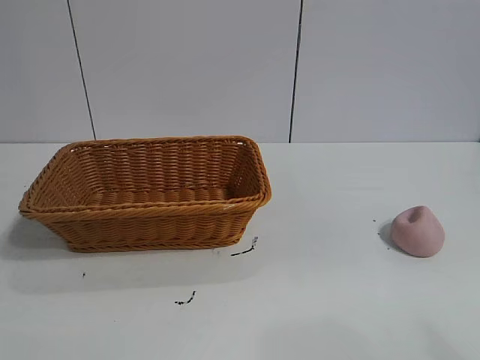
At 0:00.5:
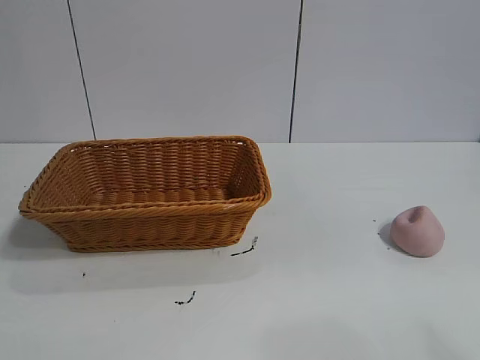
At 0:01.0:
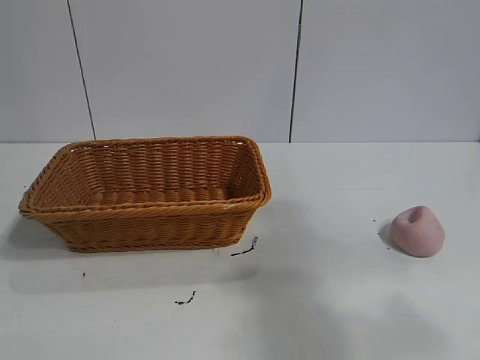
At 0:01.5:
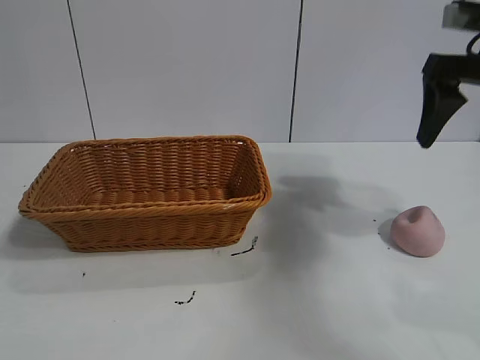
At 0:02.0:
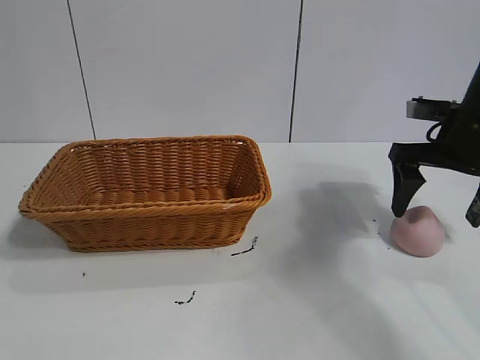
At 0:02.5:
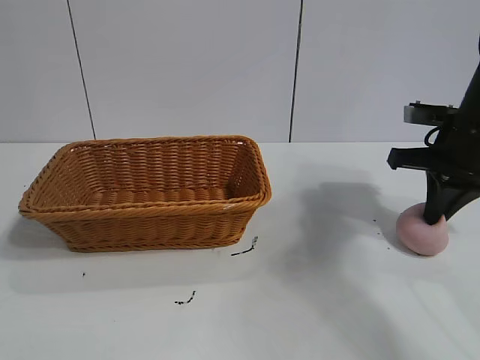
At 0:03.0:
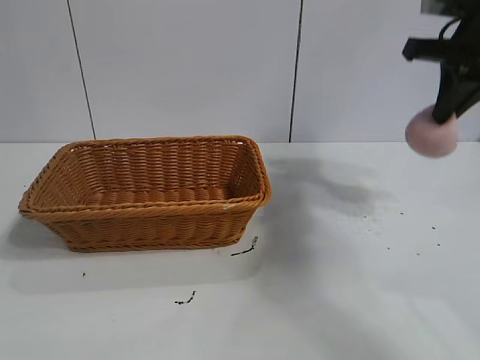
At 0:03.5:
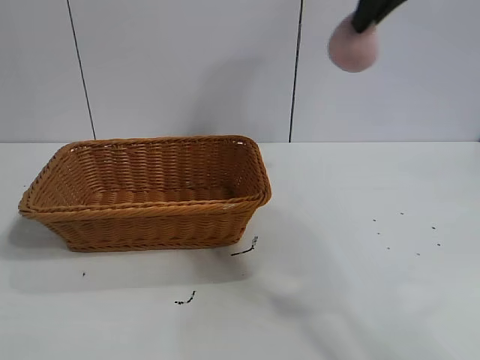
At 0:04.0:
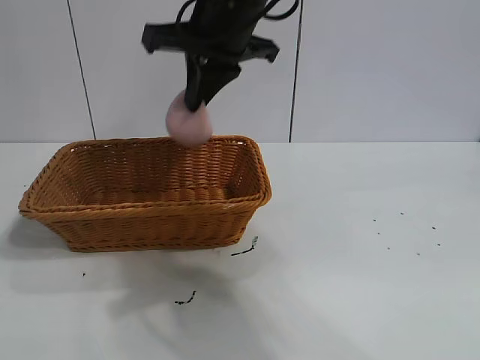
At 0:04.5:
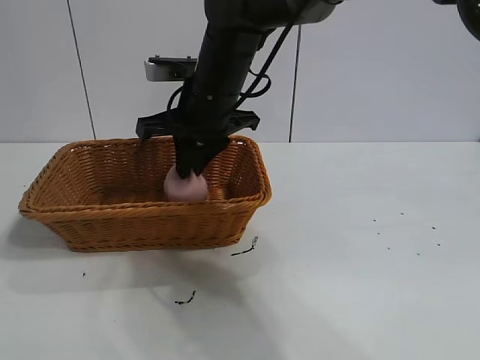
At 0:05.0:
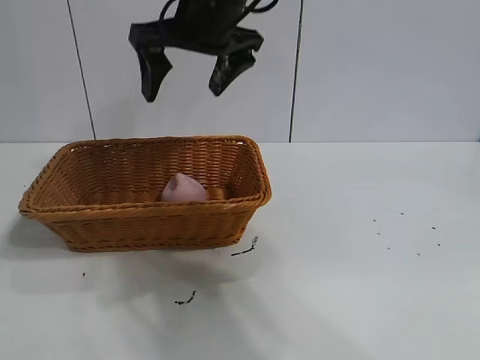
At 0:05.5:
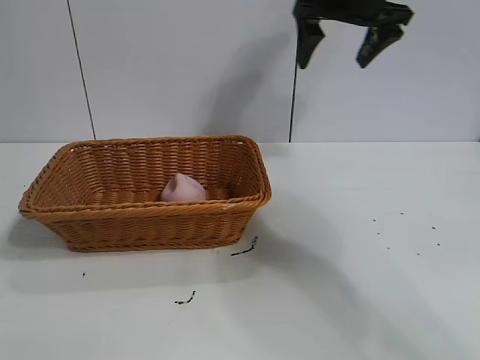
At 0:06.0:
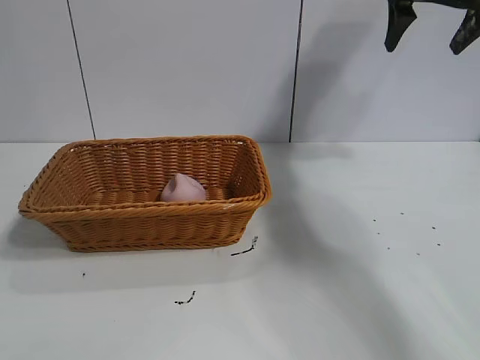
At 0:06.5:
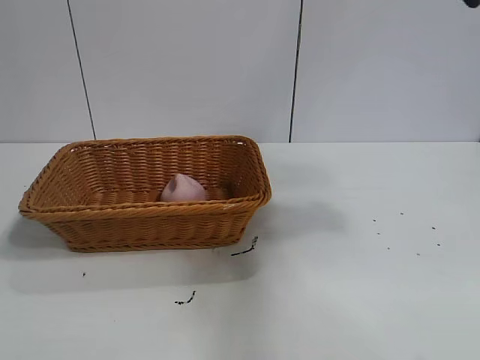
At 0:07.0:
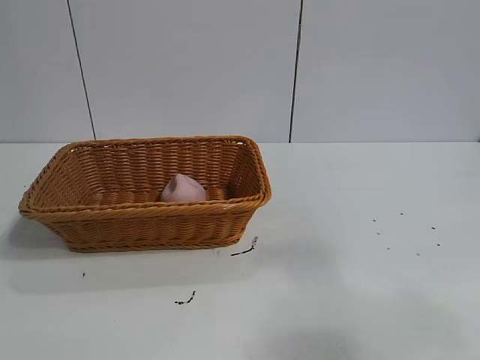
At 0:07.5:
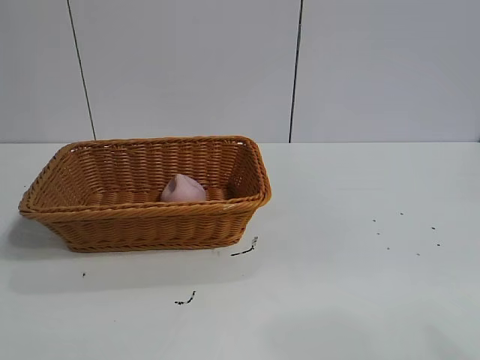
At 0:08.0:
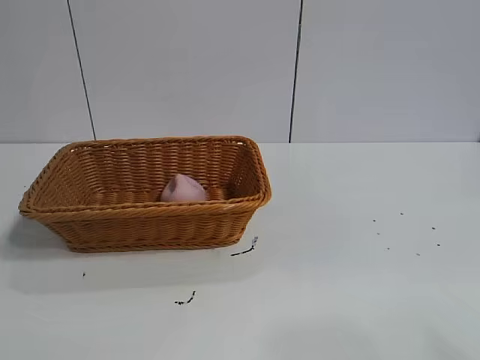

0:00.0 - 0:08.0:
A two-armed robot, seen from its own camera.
Task of the whole recording: pick up the peach and put it into the basket.
Step, 0:01.0 - 0:02.5: Grasp the peach with right gripper.
Step, 0:03.0 - 0:05.0: Place the peach in the basket with right gripper.

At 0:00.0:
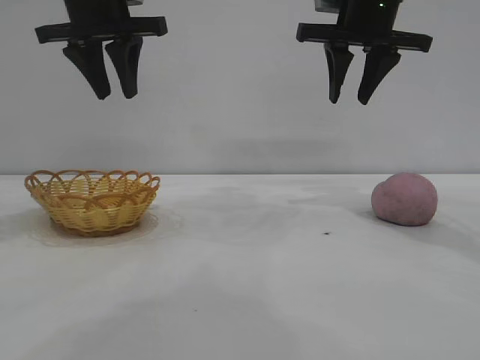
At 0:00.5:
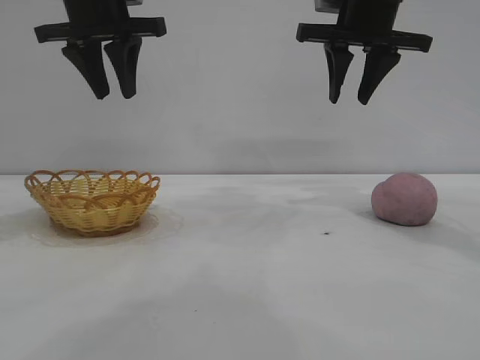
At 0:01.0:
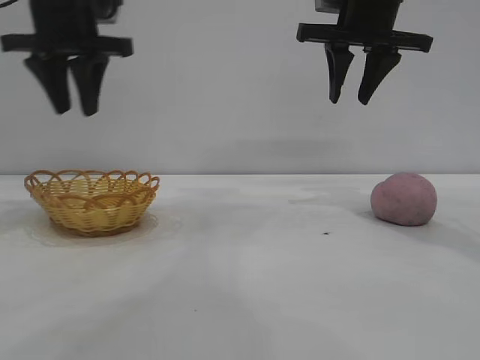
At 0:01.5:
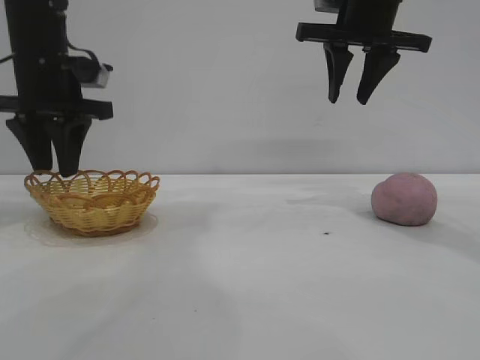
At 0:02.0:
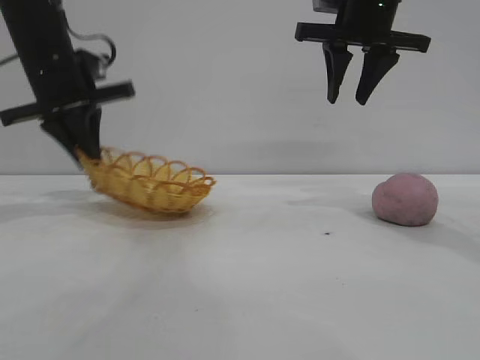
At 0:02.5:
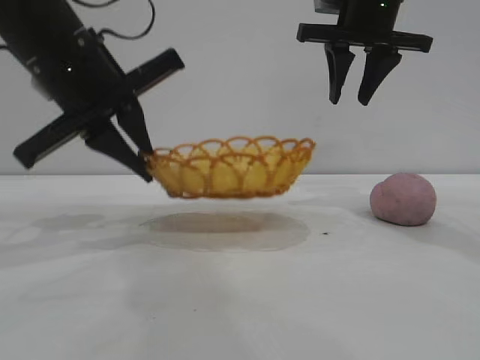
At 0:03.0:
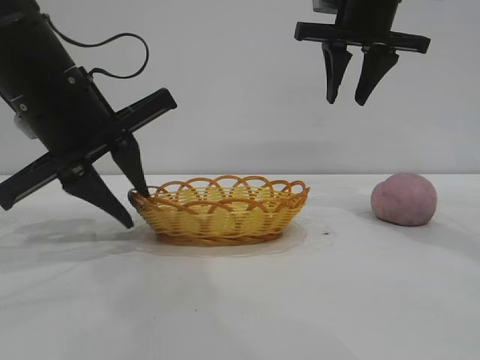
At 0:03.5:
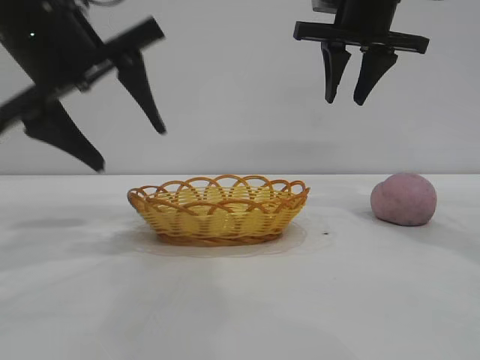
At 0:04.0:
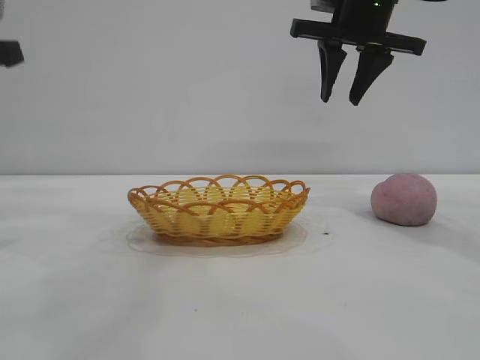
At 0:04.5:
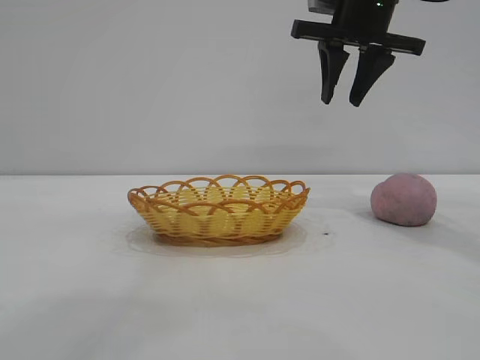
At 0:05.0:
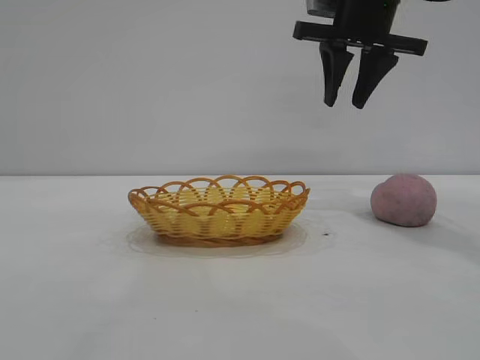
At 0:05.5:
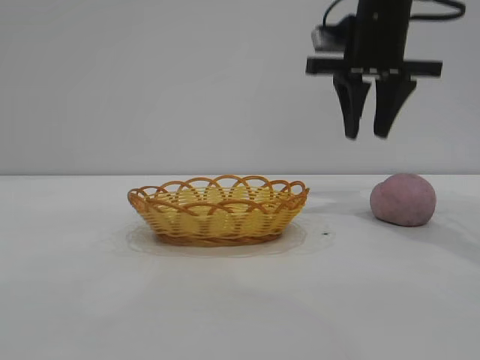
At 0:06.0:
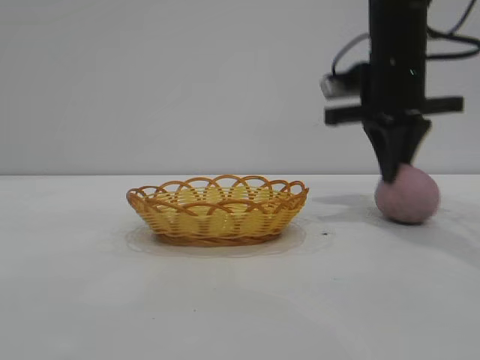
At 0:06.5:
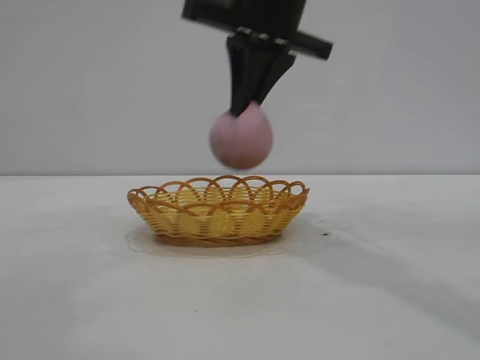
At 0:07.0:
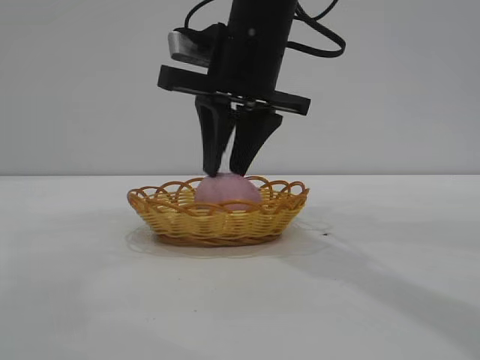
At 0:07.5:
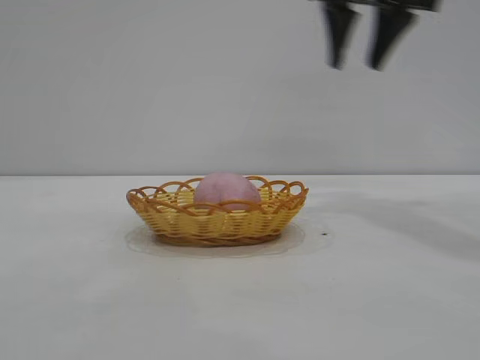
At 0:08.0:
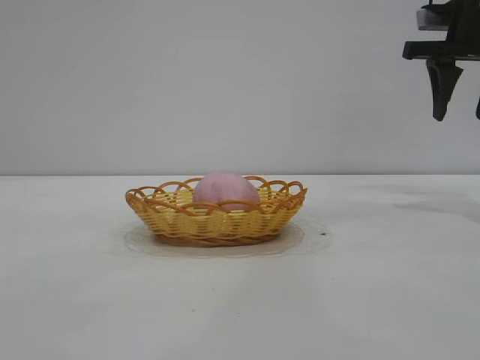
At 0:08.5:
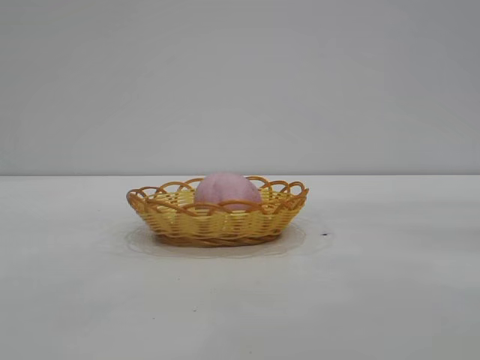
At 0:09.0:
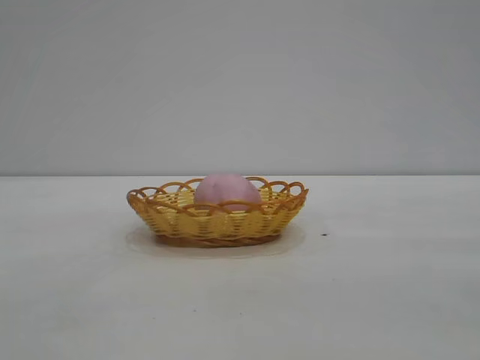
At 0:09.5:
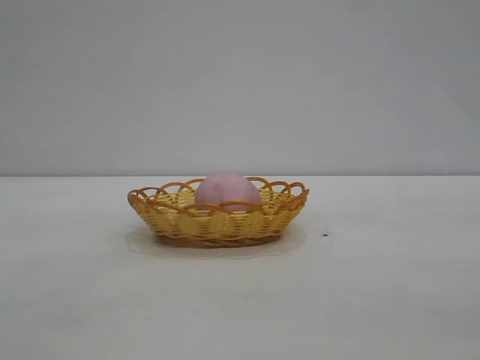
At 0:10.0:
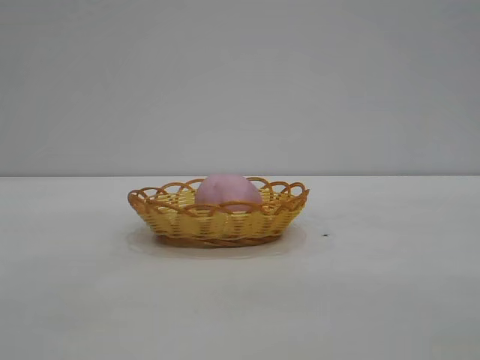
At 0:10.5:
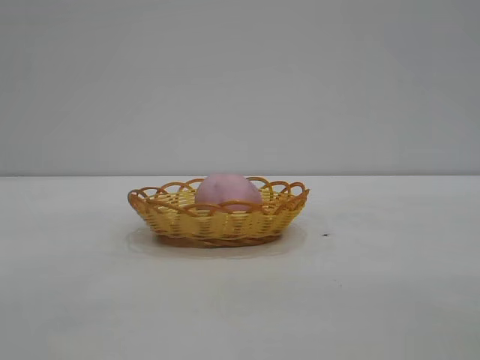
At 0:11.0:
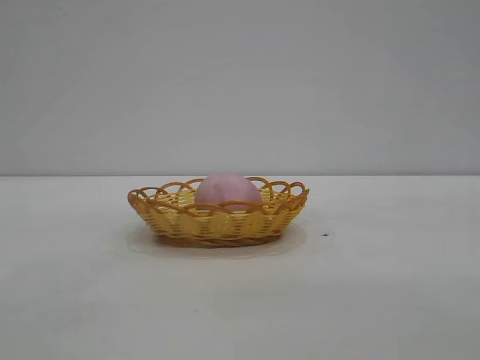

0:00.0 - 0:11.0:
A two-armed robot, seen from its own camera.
Task of the whole recording: pick up the peach and put it into the basket.
Step, 0:00.0 - 0:03.5: Move the basket to the center of view.
Step, 0:04.0 - 0:06.0: Pick up the peach.
Step, 0:06.5 - 0:07.0: place the peach into the basket.

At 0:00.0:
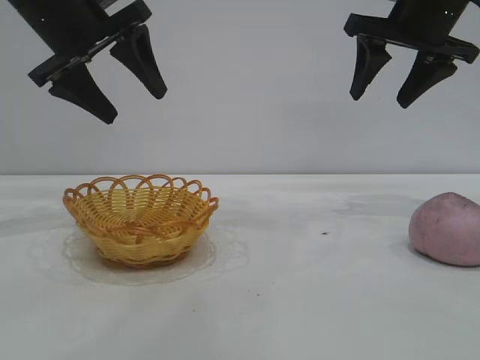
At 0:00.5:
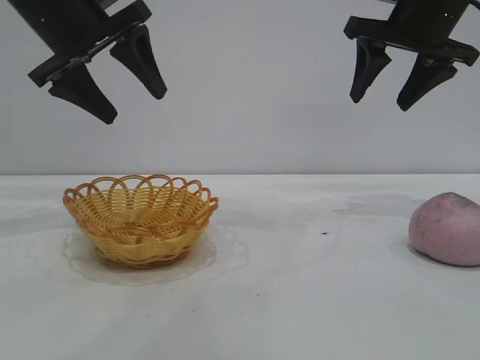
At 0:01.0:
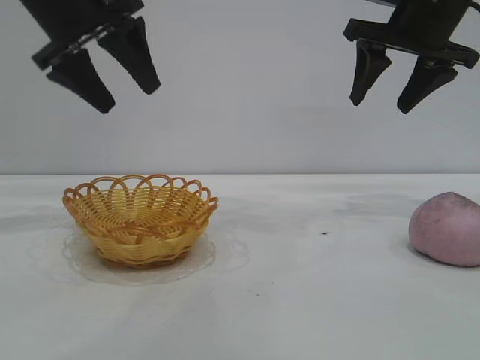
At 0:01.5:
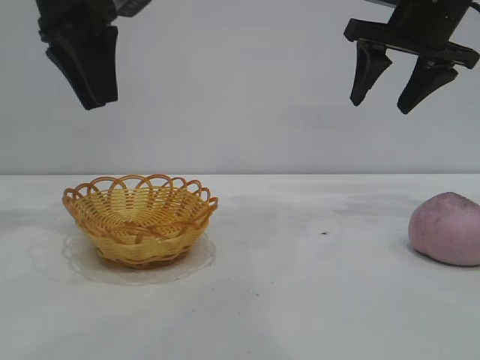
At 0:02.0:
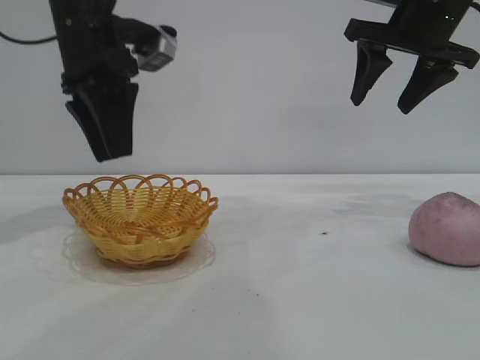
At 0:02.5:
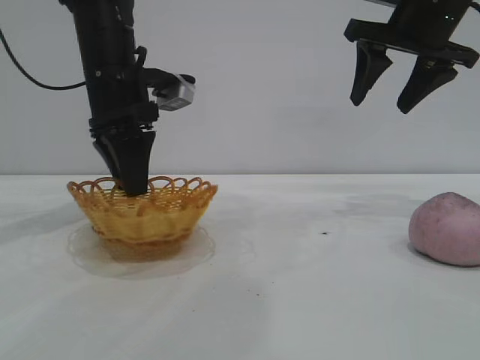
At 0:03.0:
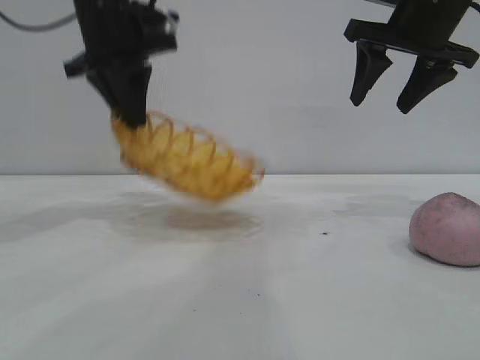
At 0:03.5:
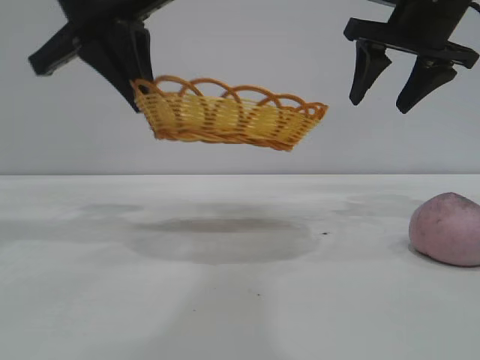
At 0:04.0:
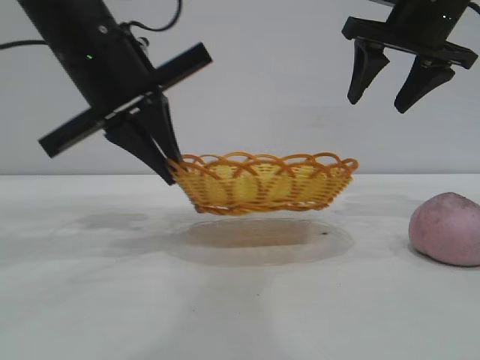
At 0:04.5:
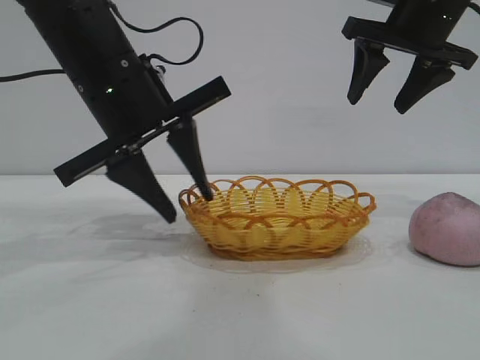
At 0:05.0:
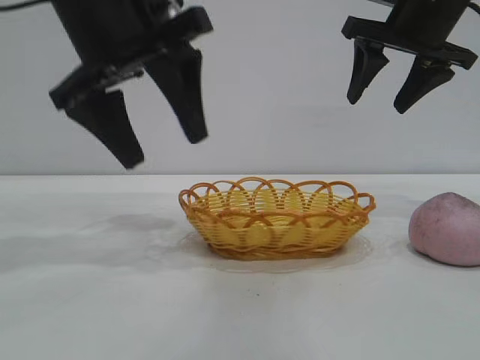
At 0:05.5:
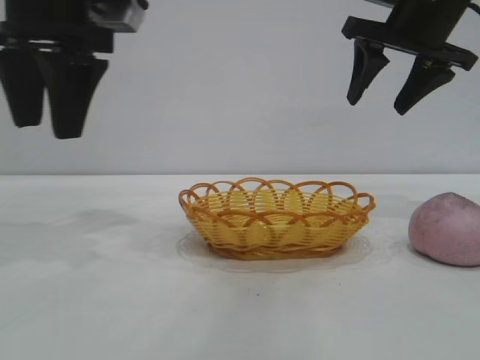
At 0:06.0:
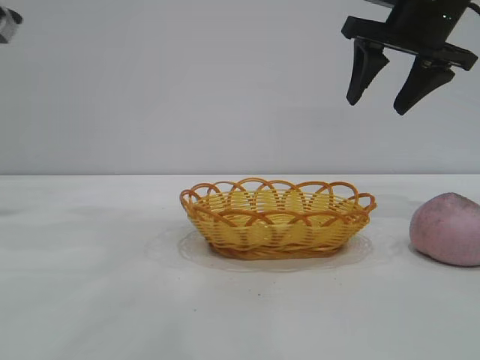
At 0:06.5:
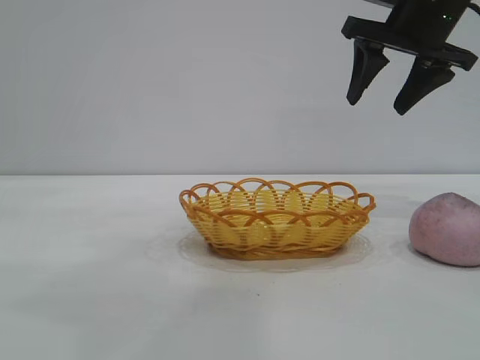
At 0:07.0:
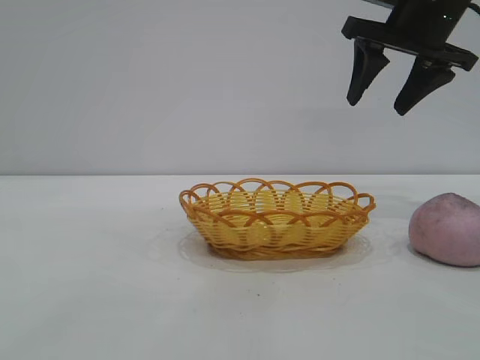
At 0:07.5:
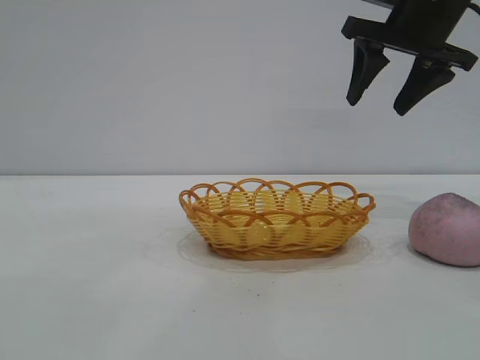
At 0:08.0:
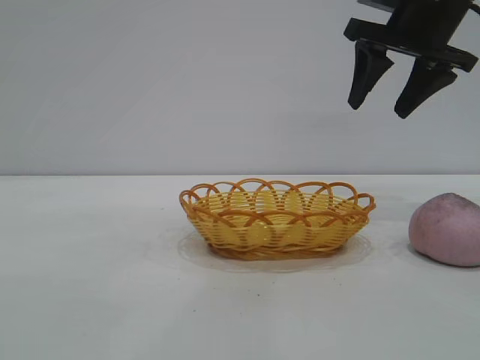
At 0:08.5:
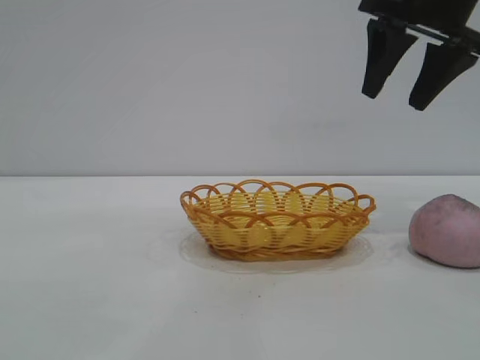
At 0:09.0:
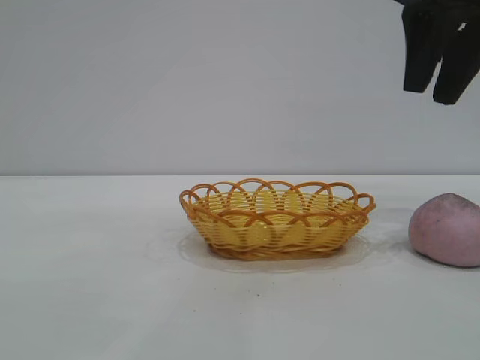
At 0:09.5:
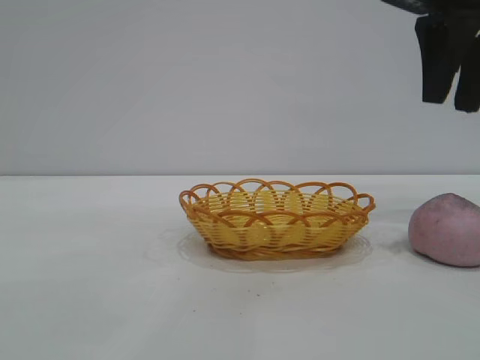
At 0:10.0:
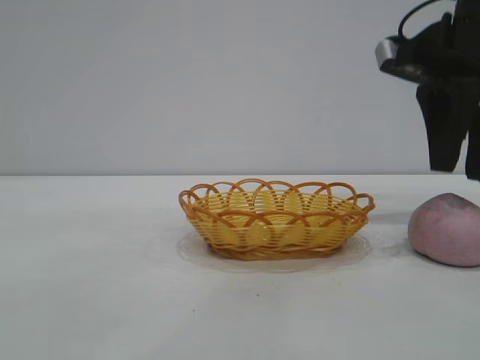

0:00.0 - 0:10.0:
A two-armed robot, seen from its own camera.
Task of the whole recording: pick up the peach and put it into the basket.
Step, 0:00.0 - 0:05.0: Move the basket to the center of view.
